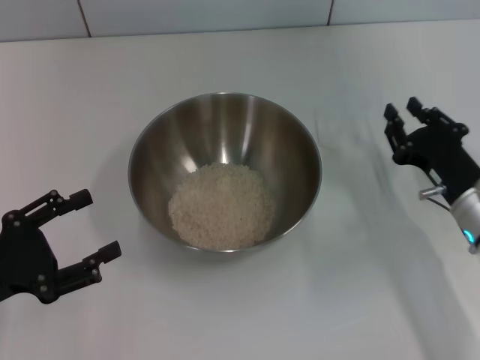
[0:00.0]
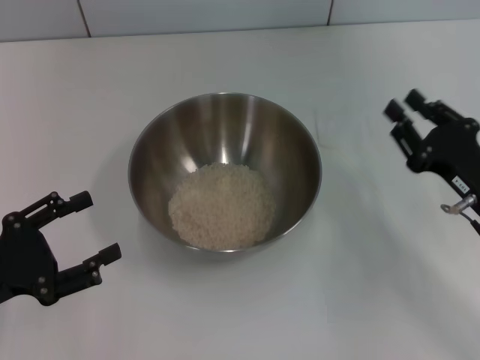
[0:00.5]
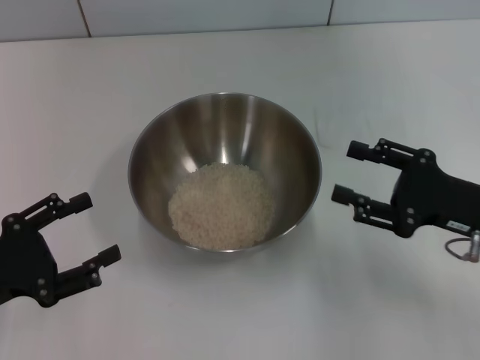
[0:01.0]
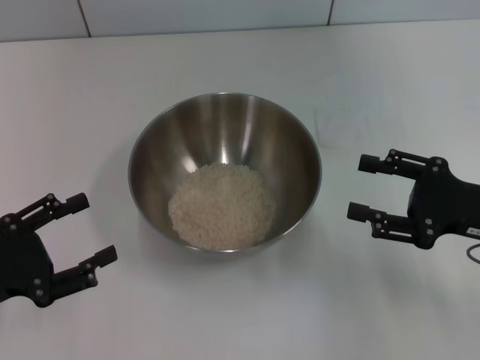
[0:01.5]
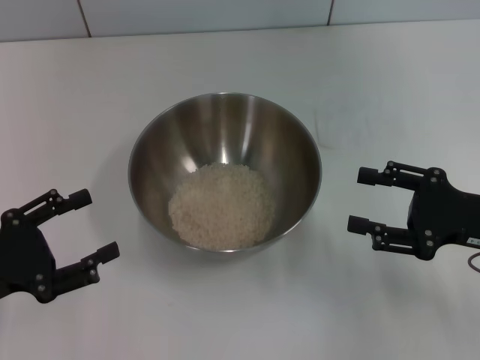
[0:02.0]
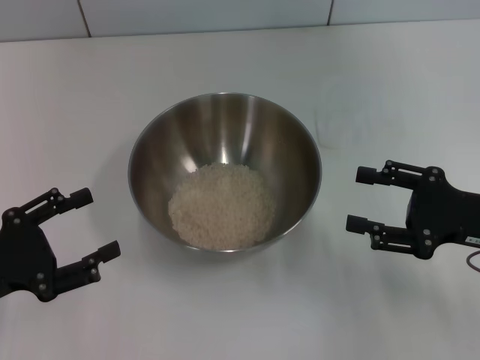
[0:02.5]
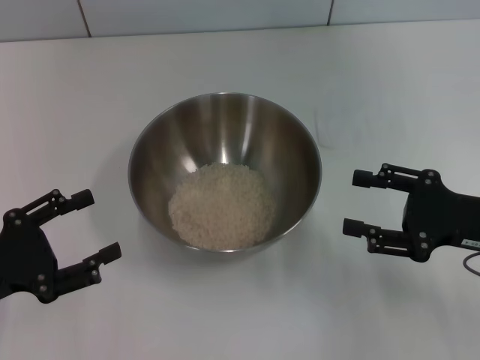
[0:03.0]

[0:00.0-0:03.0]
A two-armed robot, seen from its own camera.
Task of the whole recording: Place the bowl in the middle of the table with one hand and pour the rice from the grain cup into it with the other hand.
0:00.0 to 0:01.5: The right gripper shifts about 5 cm upward, and opens up.
0:01.5 to 0:03.0: Both grippers stay about where they are.
